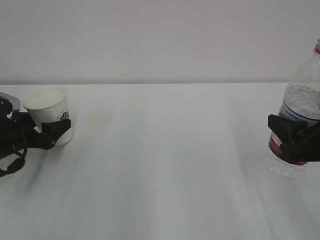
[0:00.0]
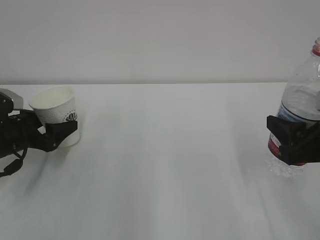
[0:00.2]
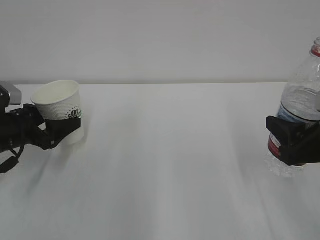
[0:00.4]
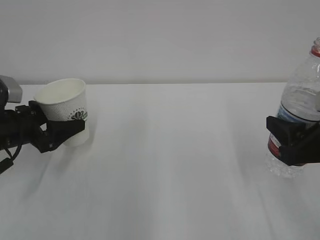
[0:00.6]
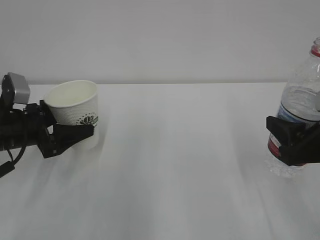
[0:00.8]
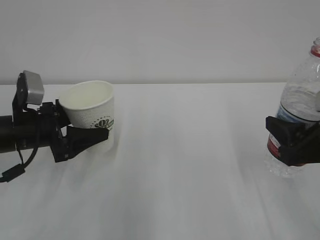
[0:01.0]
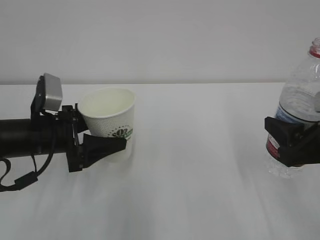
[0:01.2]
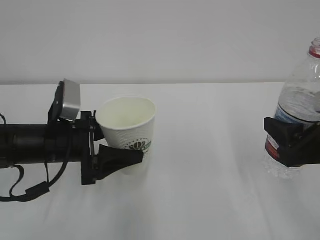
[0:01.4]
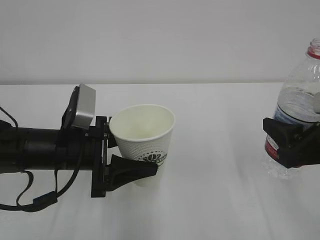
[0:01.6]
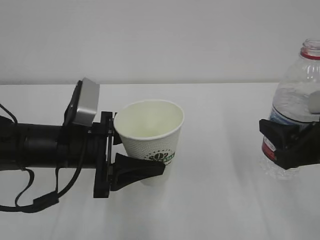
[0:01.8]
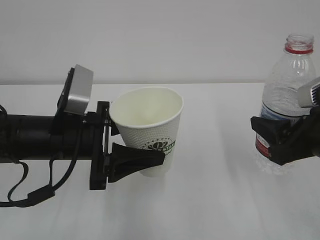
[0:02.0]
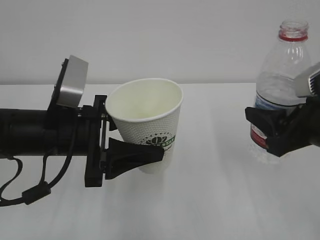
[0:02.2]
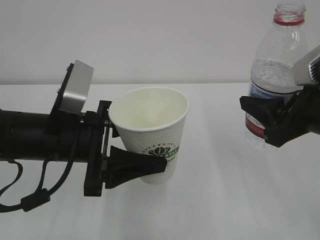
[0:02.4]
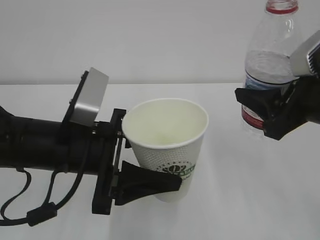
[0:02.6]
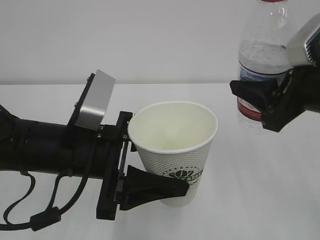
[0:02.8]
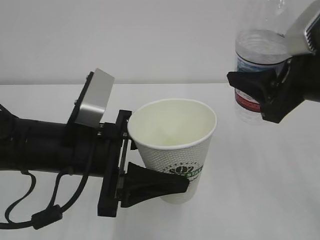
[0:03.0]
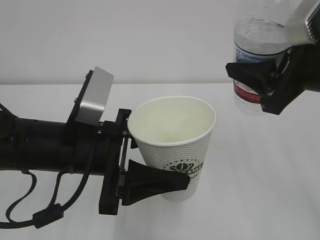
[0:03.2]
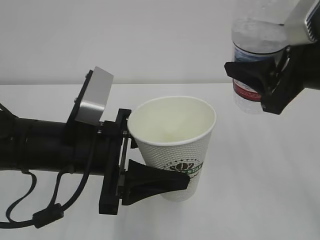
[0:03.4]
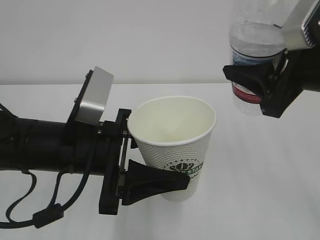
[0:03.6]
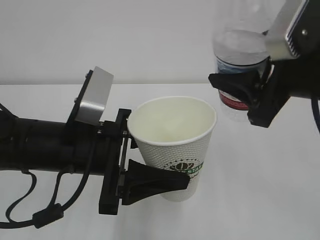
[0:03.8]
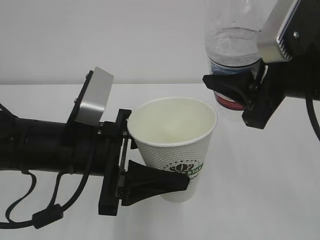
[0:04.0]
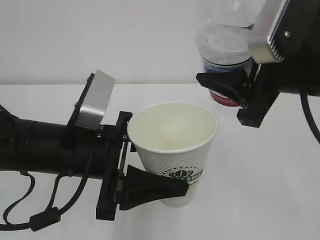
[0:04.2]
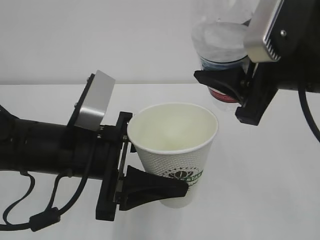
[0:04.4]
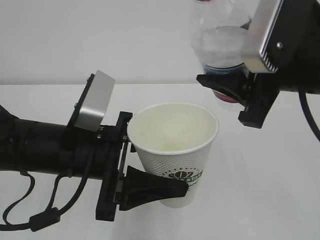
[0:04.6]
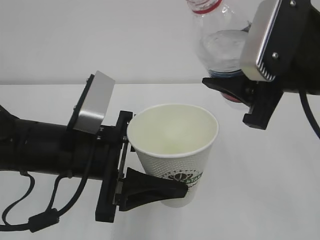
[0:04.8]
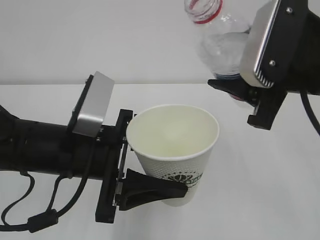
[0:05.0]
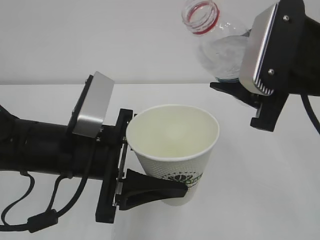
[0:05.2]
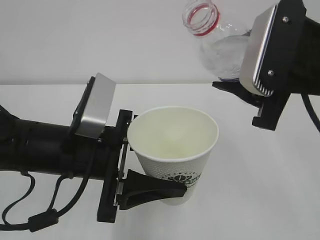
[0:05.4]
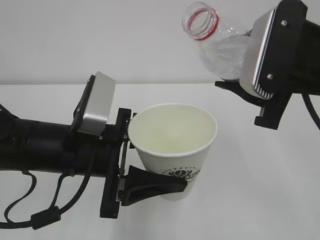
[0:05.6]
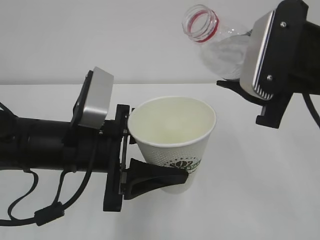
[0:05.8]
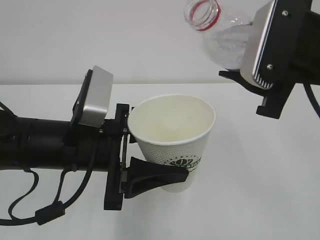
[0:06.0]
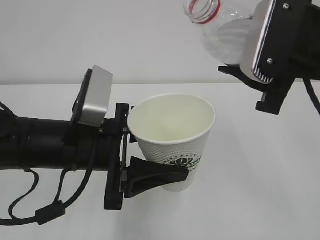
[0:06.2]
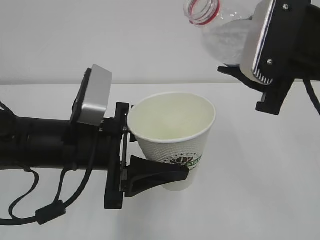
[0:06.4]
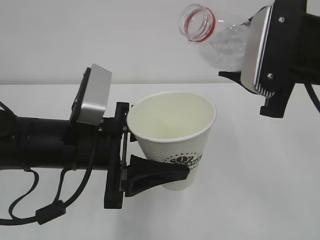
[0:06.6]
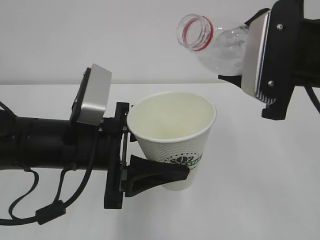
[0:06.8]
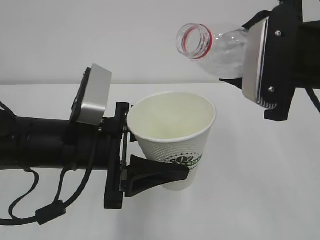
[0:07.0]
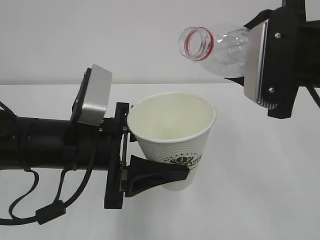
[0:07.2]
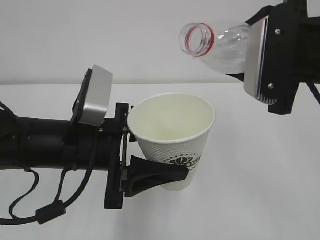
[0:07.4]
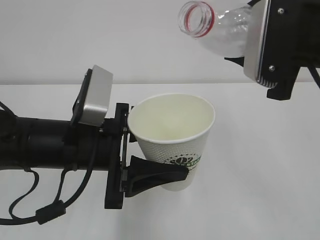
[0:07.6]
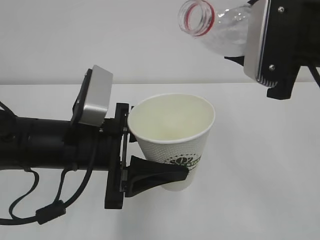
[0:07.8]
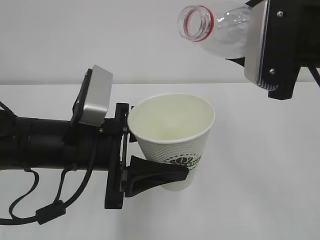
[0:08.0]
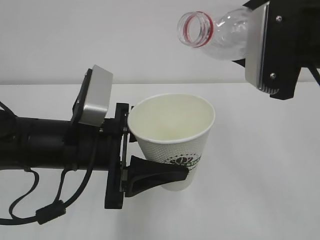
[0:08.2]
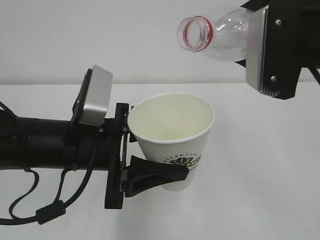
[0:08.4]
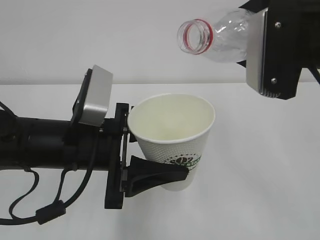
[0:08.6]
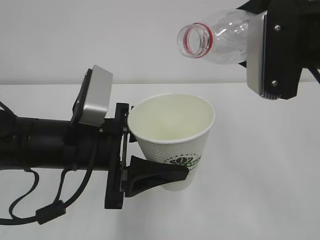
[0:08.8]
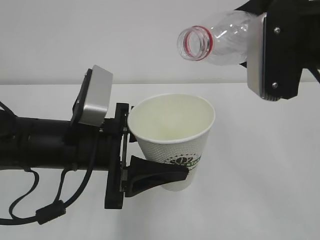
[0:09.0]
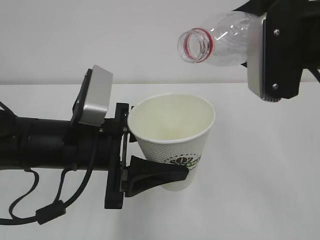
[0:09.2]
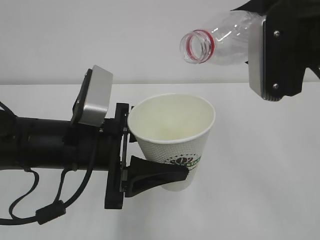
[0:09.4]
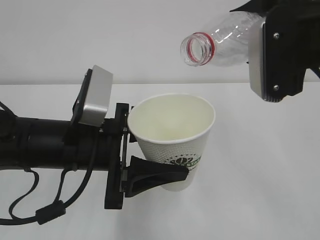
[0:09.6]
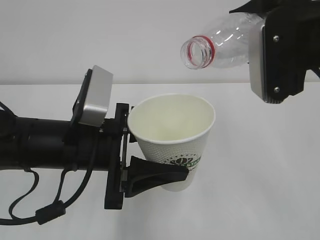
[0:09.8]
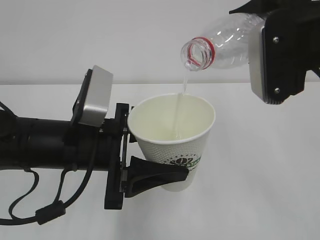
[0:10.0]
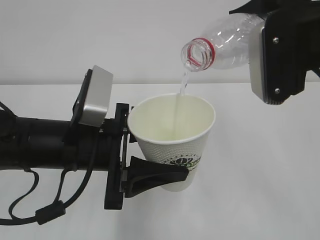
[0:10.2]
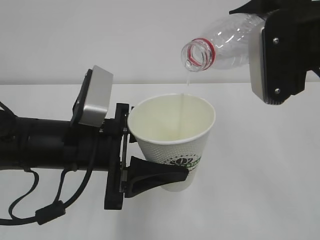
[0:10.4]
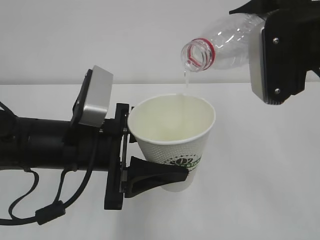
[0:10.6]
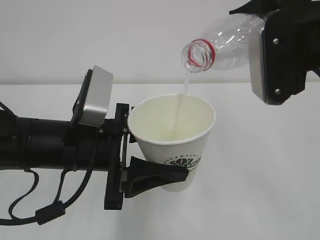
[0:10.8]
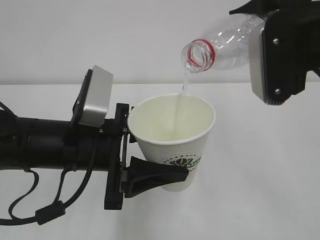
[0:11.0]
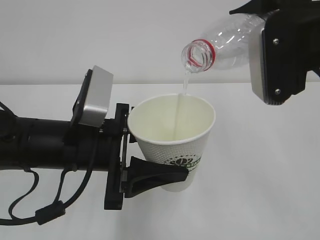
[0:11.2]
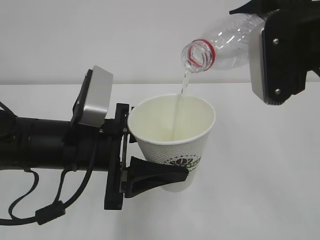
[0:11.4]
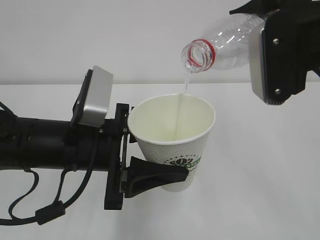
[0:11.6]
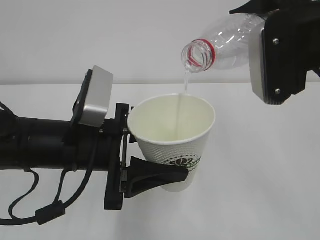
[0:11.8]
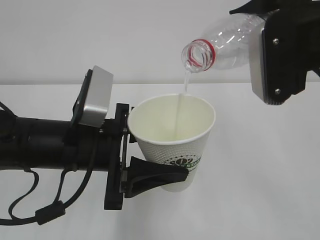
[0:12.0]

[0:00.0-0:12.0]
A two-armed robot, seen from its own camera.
0:00.0 to 0:01.6: The left gripper moves to the right, backward and upward, approximately 20 cm.
0:01.6 to 0:03.0: The left gripper travels upward by some 5 cm; the right gripper goes some 10 cm upward.
0:03.0 to 0:04.4: The right gripper changes place by approximately 5 cm.
0:06.0 to 0:07.6: There are only small adjustments of the grippers.
0:07.6 to 0:10.4: The grippers make only small movements.
0:10.4 to 0:12.0: Neither gripper changes place.

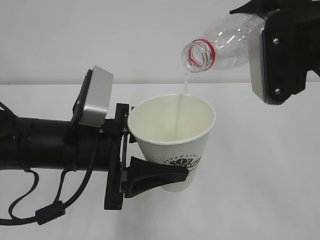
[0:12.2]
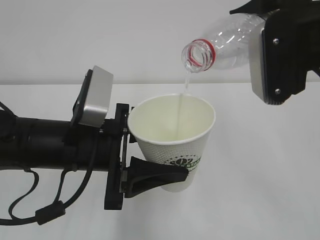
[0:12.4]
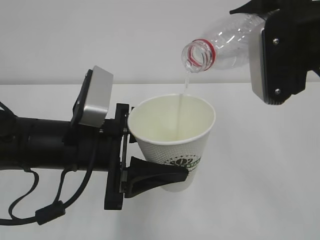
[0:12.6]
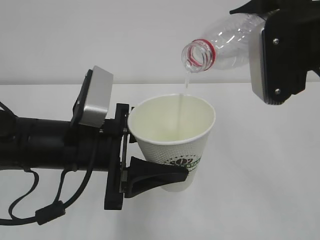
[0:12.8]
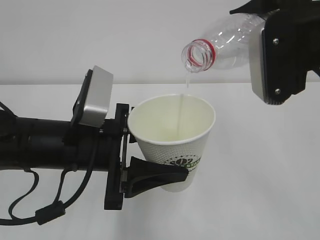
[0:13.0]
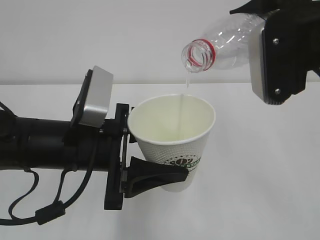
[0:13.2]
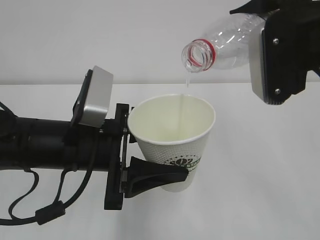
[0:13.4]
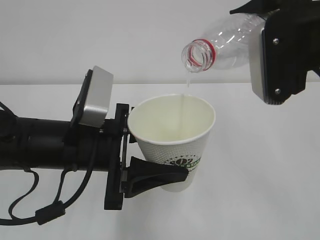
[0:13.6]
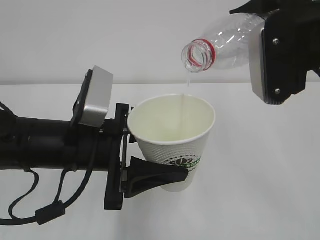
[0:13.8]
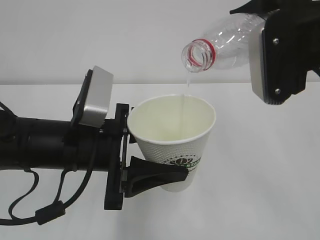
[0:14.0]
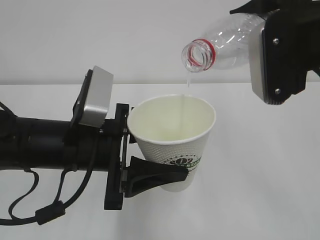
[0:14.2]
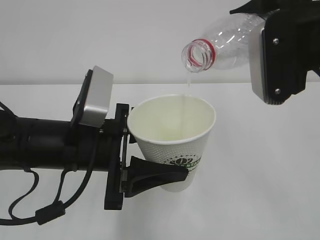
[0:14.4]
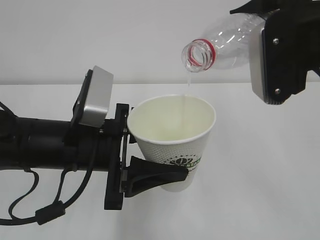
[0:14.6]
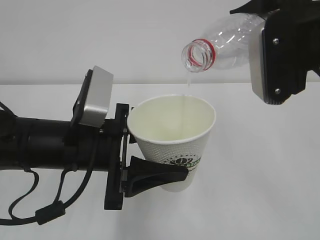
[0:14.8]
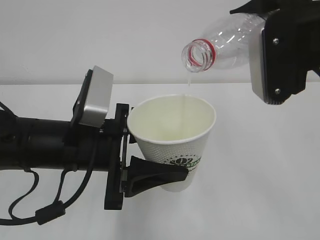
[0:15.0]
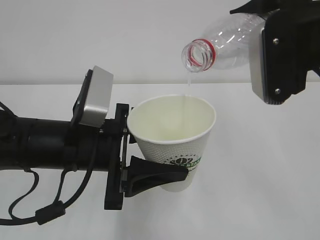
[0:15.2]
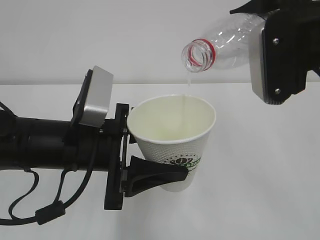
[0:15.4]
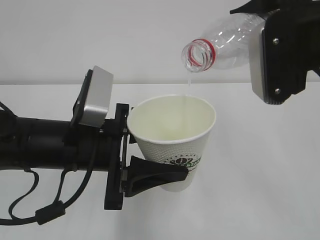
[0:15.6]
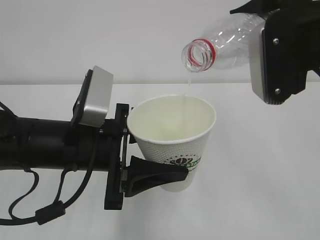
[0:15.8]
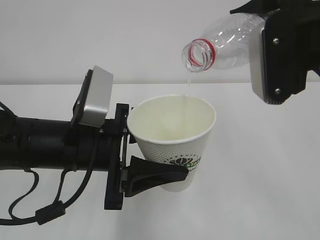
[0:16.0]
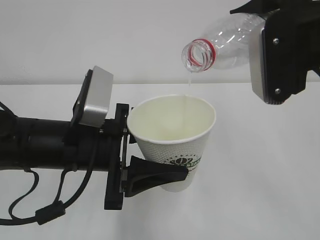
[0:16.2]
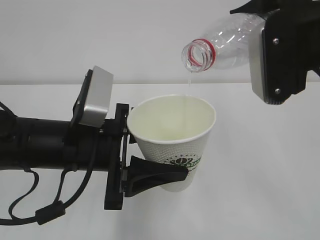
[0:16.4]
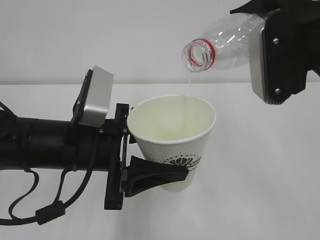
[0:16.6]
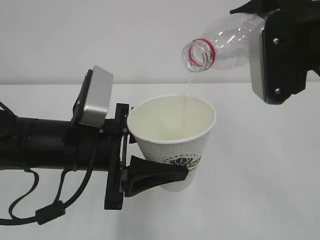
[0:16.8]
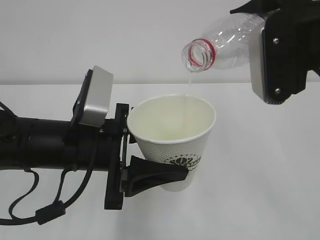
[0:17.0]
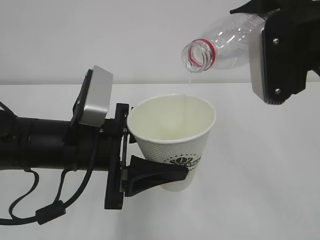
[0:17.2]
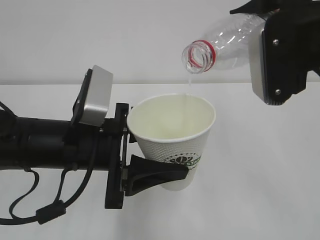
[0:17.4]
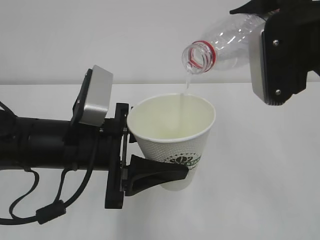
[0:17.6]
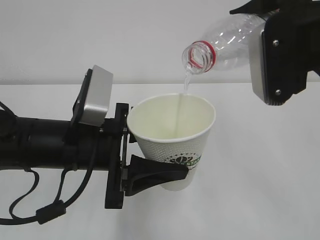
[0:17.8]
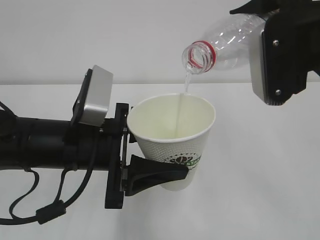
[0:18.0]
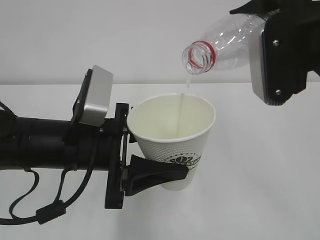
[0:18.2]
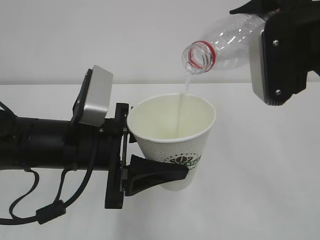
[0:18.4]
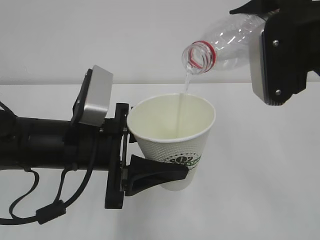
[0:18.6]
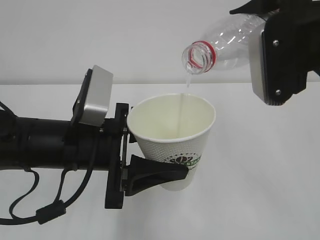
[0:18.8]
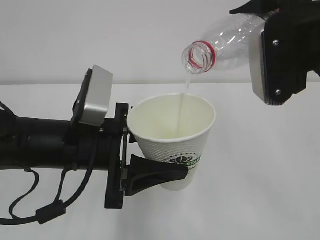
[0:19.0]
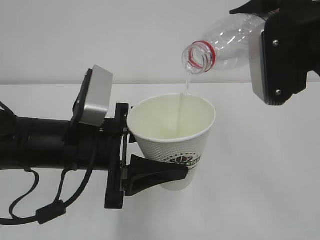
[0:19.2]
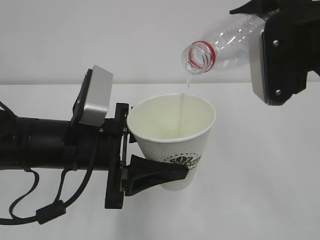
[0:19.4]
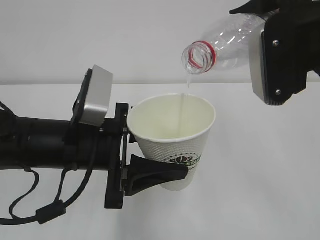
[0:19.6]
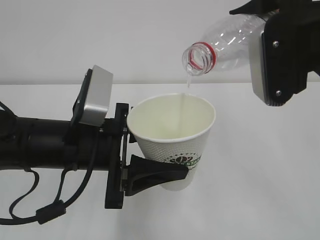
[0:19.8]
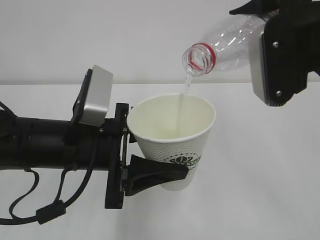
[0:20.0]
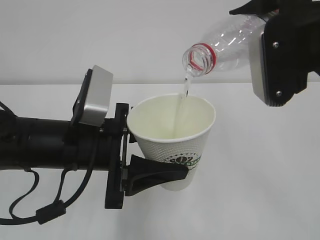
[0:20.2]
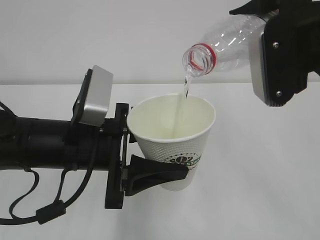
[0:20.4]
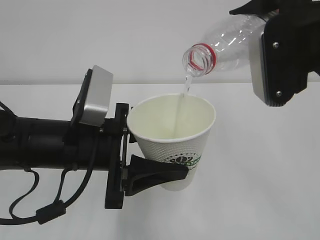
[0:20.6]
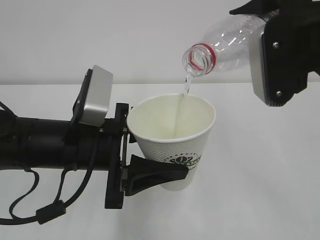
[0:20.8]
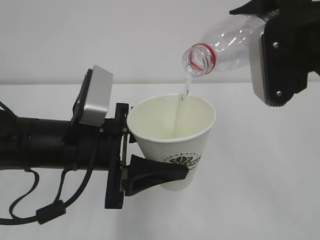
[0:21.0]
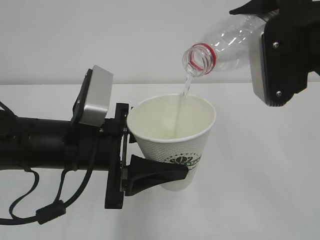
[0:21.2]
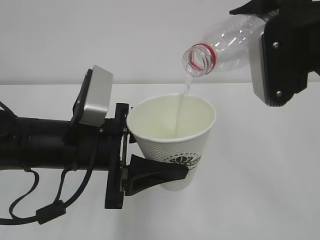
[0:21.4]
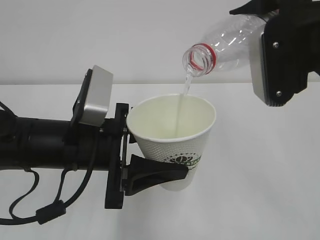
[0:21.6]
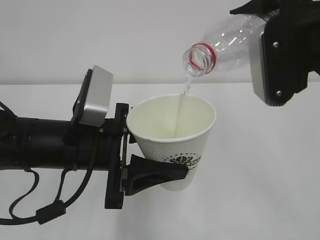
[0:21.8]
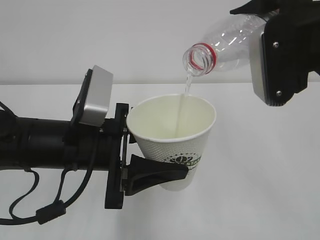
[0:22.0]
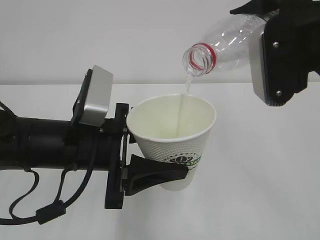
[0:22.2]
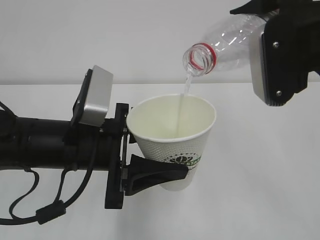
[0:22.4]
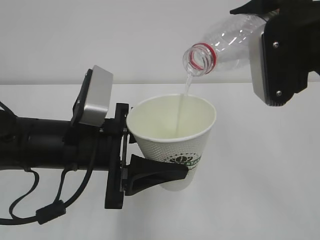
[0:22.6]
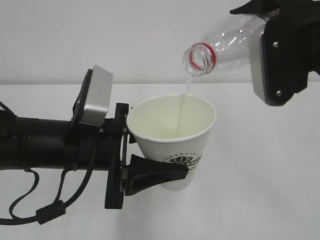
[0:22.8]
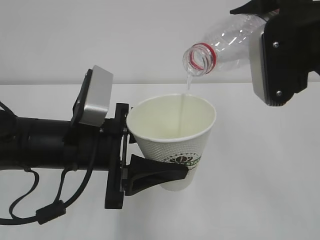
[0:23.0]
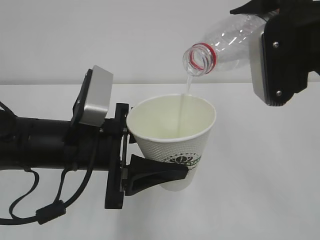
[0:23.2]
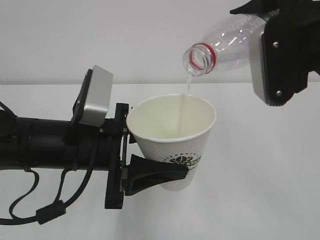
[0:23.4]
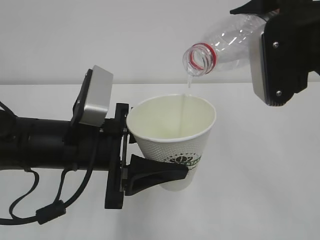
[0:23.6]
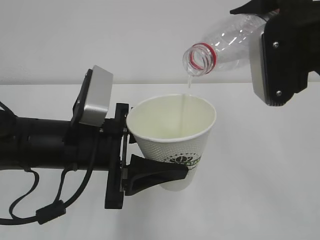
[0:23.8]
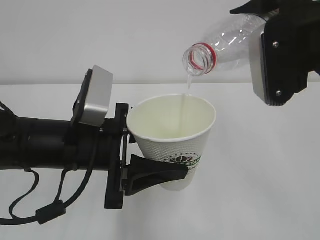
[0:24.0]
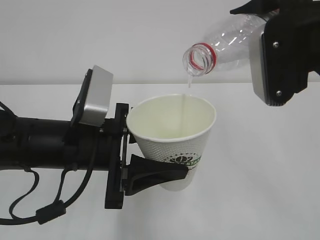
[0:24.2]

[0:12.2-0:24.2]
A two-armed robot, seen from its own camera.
0:12.2 to 0:24.2: Both grippers stay put.
